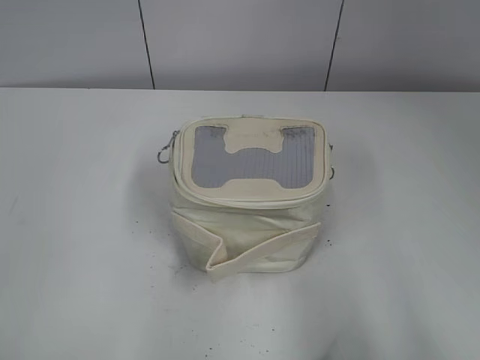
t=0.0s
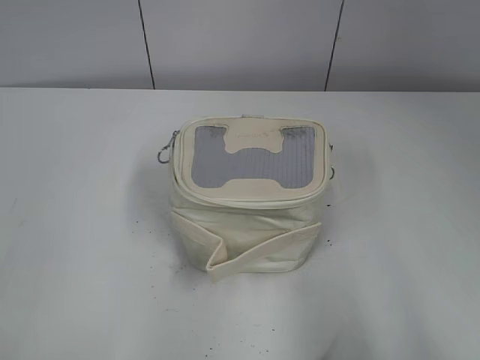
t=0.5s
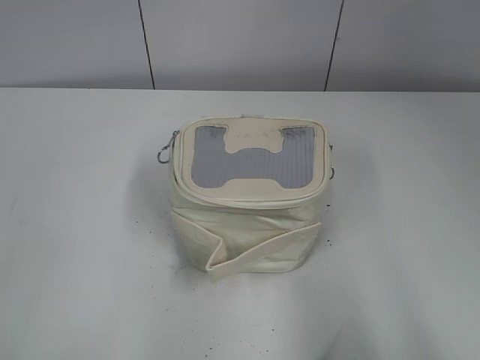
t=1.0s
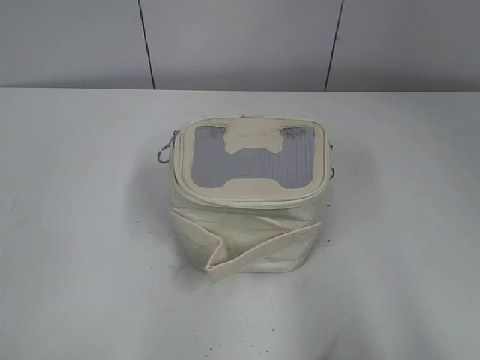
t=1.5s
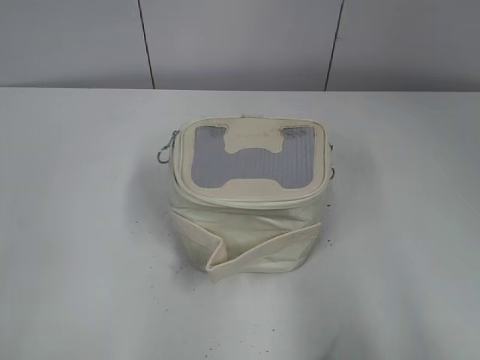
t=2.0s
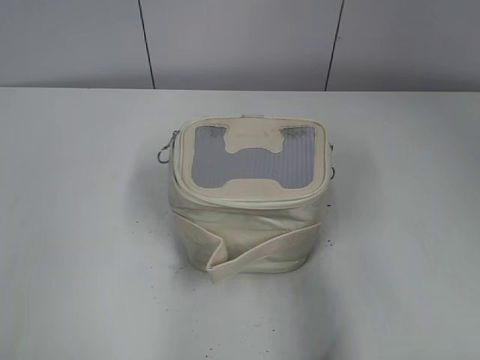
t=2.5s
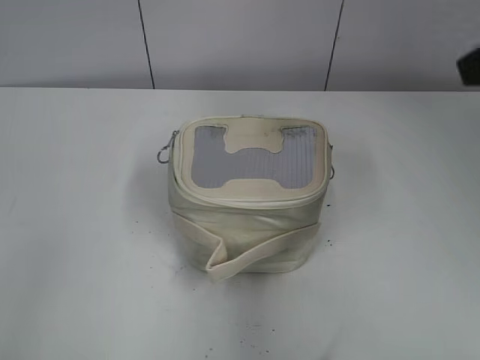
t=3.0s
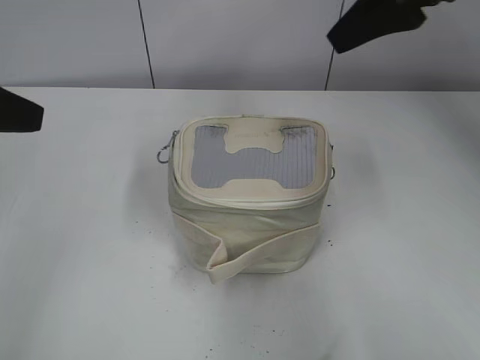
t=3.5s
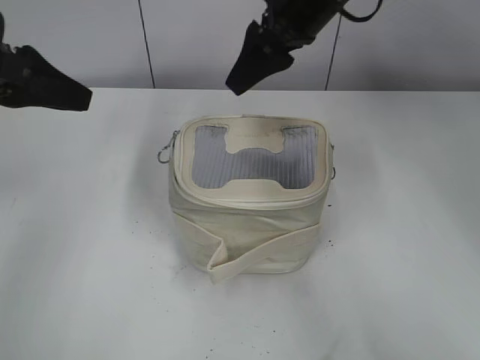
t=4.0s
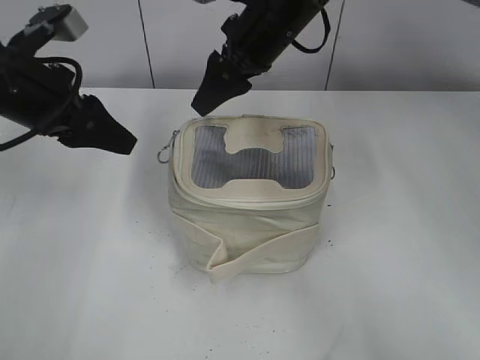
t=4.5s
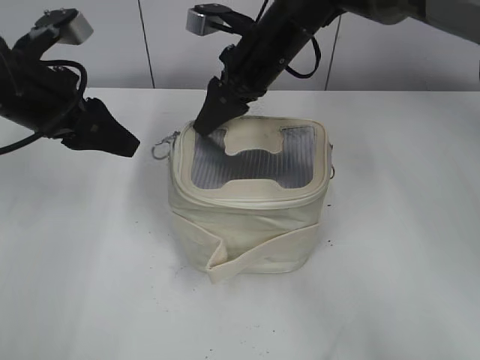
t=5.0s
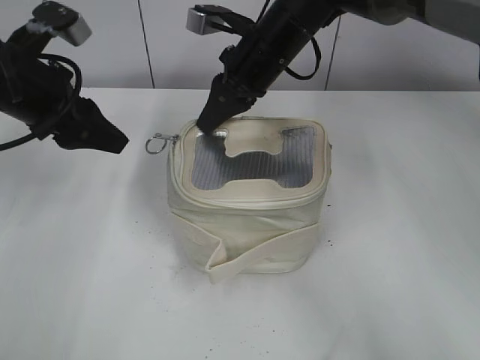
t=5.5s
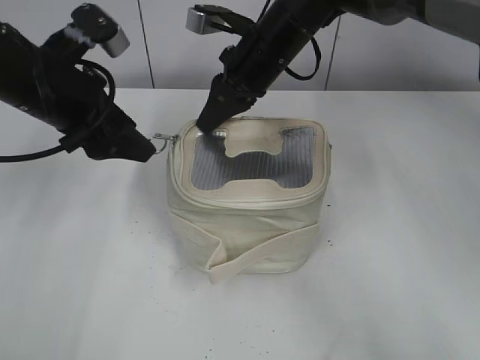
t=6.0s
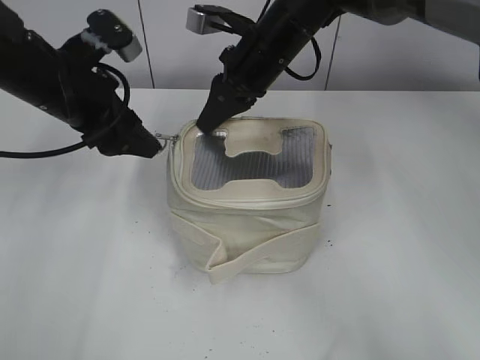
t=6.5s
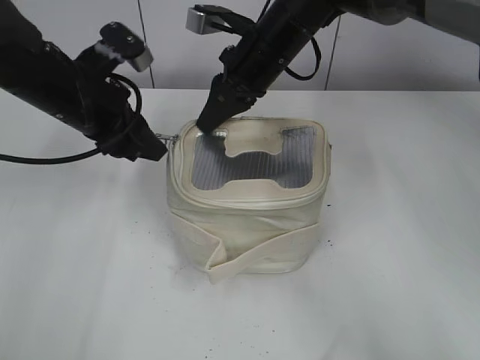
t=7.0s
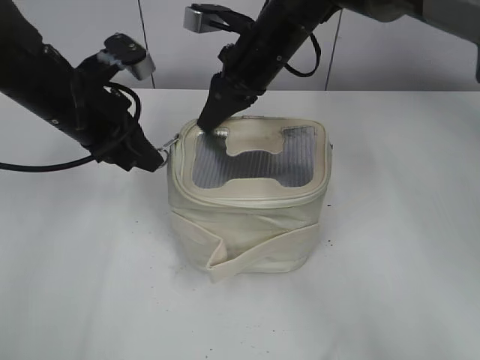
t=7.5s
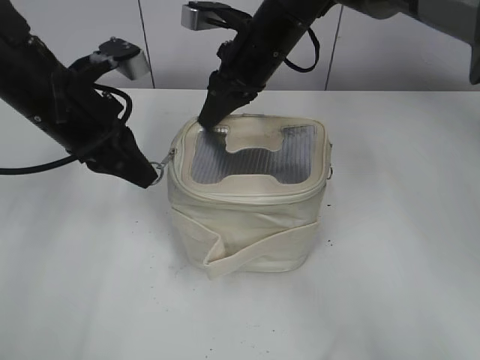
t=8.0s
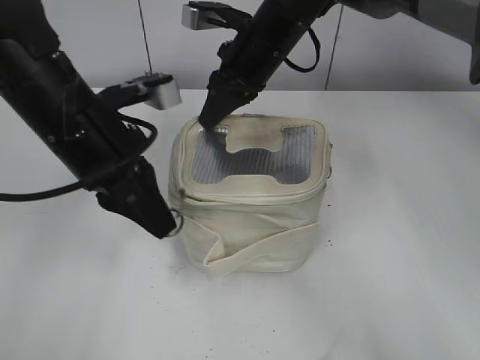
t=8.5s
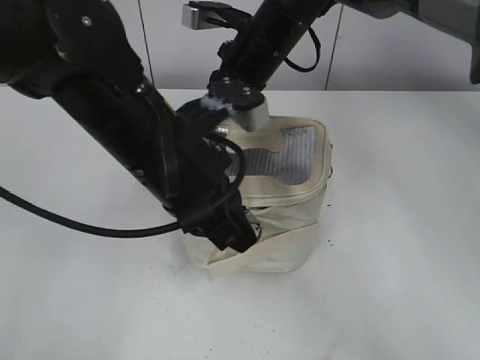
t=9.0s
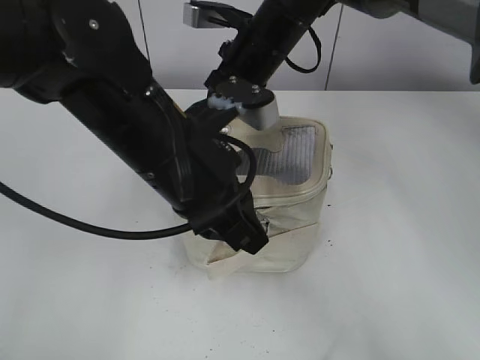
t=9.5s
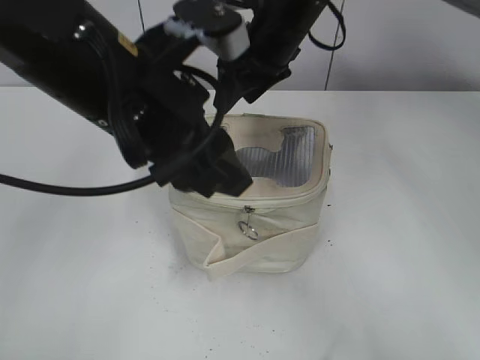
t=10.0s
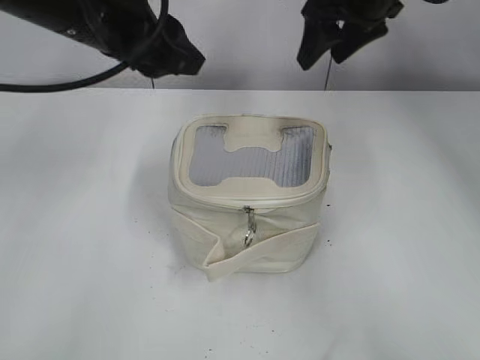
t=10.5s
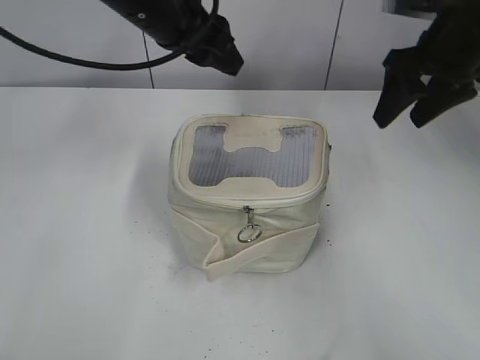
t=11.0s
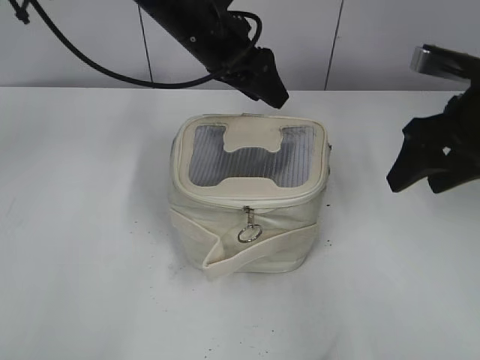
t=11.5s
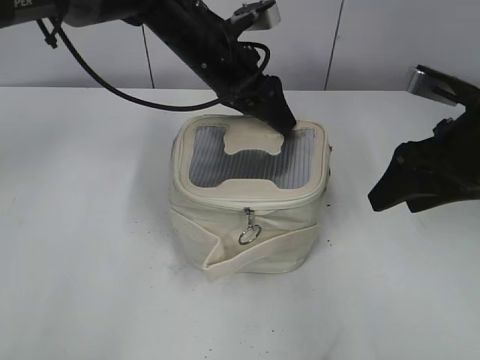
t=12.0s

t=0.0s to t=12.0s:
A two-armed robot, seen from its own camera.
Step, t=0.0s to t=9.5s: Zip up the bag with your left hand.
t=2.0s to t=4.0s: The right gripper heads forward and to the left, covering some 50 cm, while the left gripper heads forward, covering roughly 30 cm.
t=4.0s to t=6.0s: The left gripper heads to the right, covering approximately 5 cm; the right gripper goes some 10 cm downward and to the left, and closes up.
t=6.0s to t=8.0s: The left gripper closes its fingers.
t=8.0s to t=10.0s: The left gripper heads to the right and backward, covering approximately 15 cm, and opens up. Meanwhile the right gripper opens.
t=10.0s to t=12.0s: The left gripper shifts approximately 20 cm forward. Meanwhile the right gripper heads to the right and backward, covering about 25 cm.

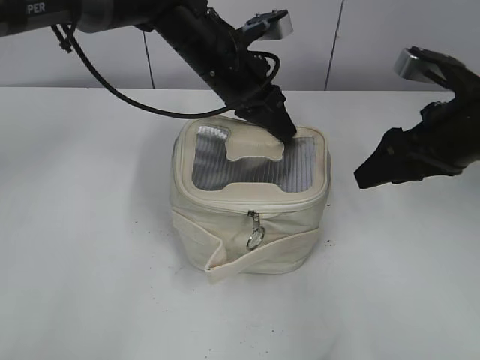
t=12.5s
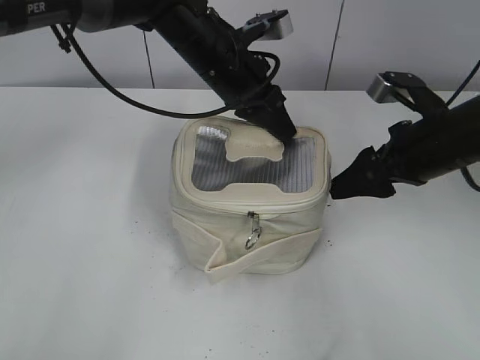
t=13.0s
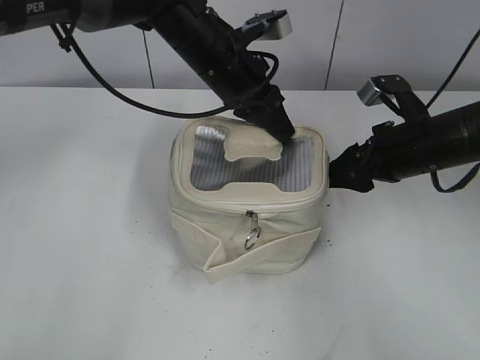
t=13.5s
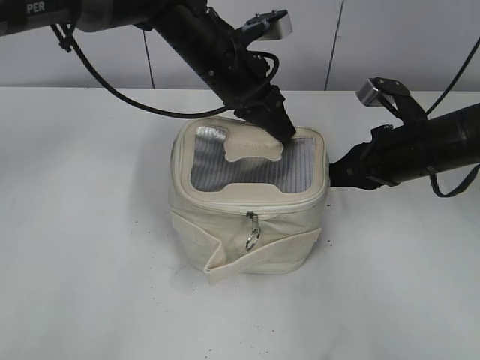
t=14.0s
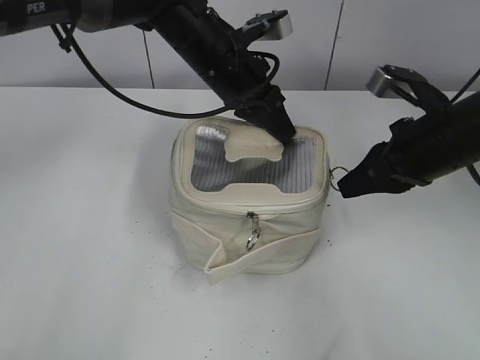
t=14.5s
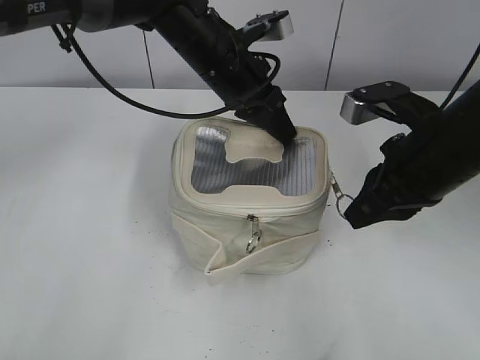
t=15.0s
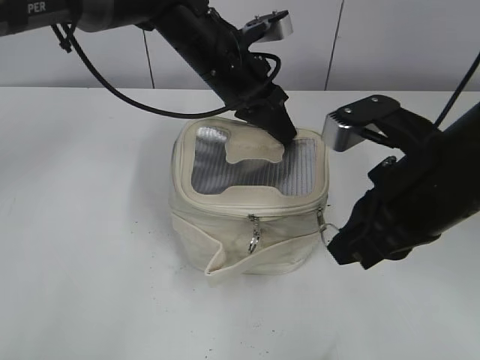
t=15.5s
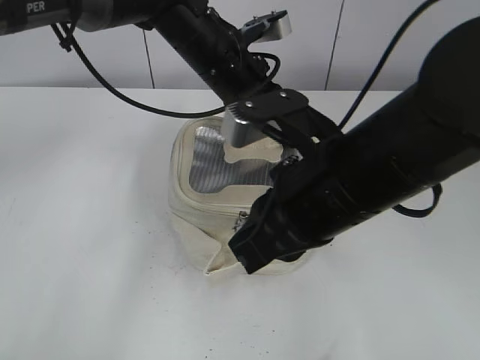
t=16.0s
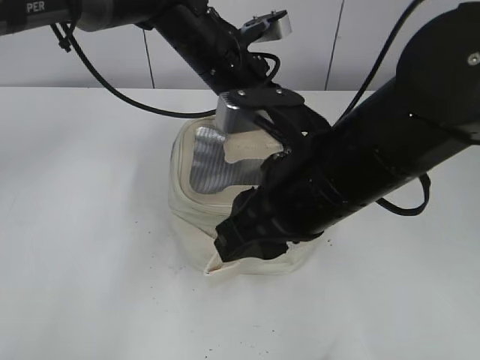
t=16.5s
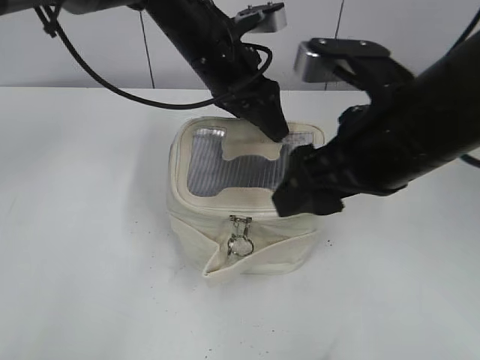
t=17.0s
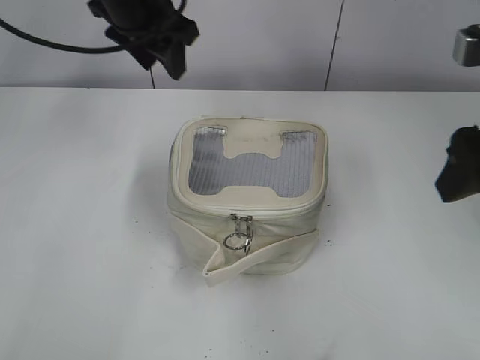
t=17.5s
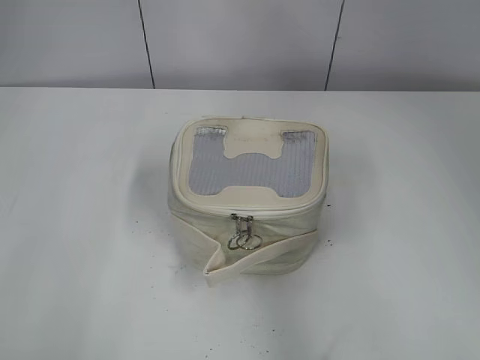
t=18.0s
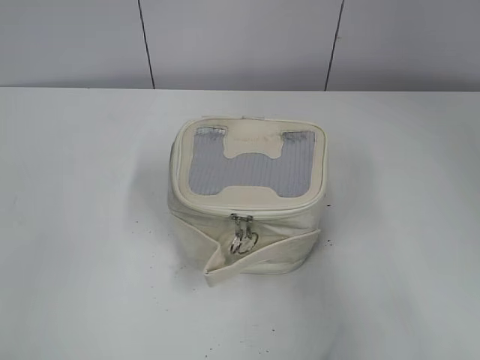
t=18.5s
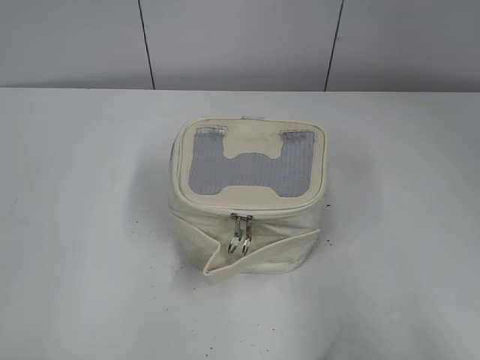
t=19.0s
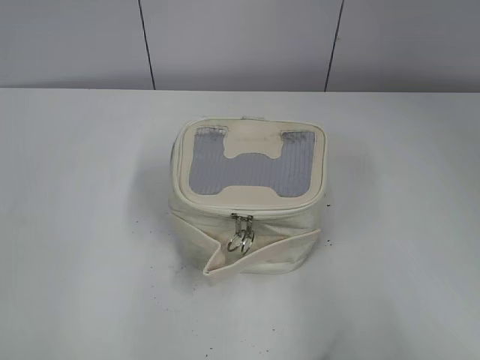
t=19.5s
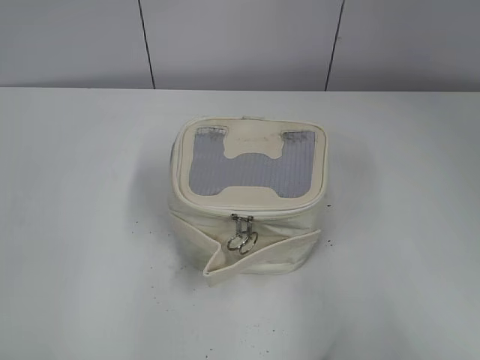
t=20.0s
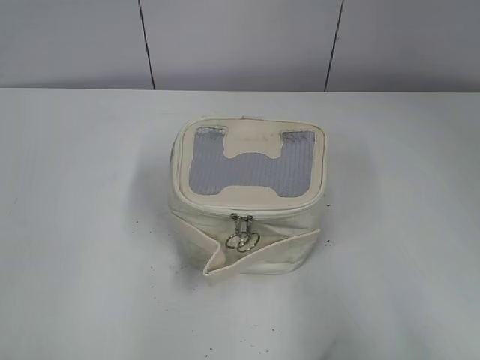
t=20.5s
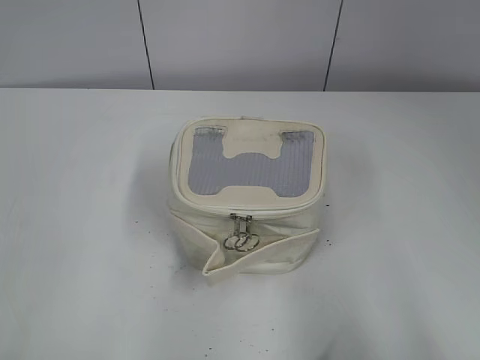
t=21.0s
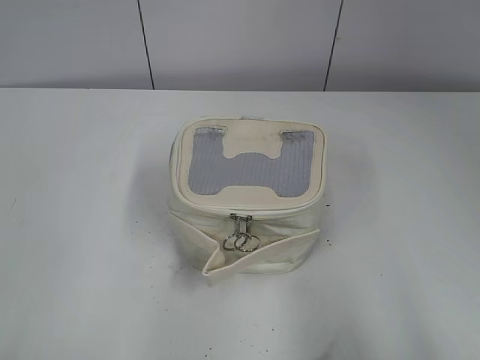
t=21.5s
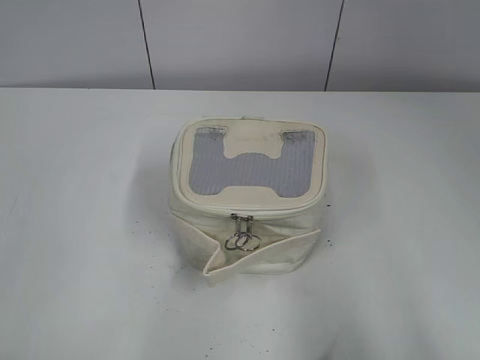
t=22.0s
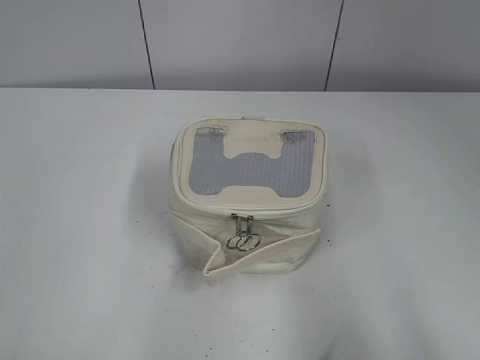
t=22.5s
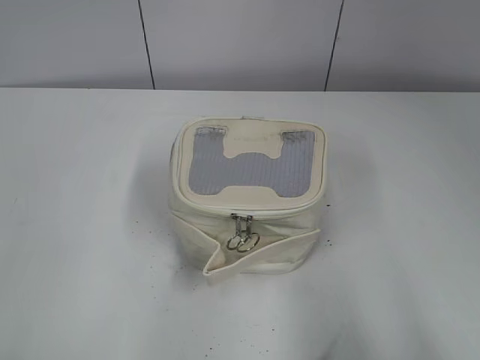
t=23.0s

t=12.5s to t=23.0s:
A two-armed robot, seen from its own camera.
Step, t=12.5s to t=16.5s: Zip up the bag with your right hand.
t=12.5s to t=14.5s: The right gripper closes its fingers.
t=14.5s to t=16.5s: The right gripper moves to the left and backward, about 20 cm.
t=16.5s to t=19.0s: The right gripper moves to the right and backward, some 30 cm, and opens up. Meanwhile the left gripper shifts roughly 50 cm backward and to the left, and opens its fingers.
t=21.0s to t=23.0s: Both grippers stay put.

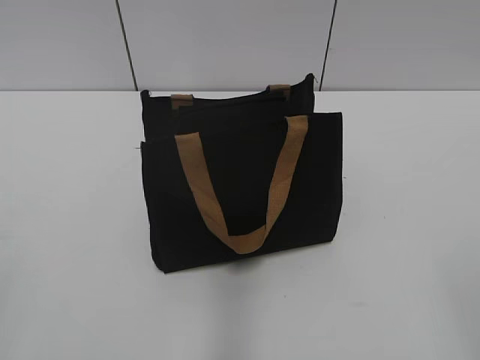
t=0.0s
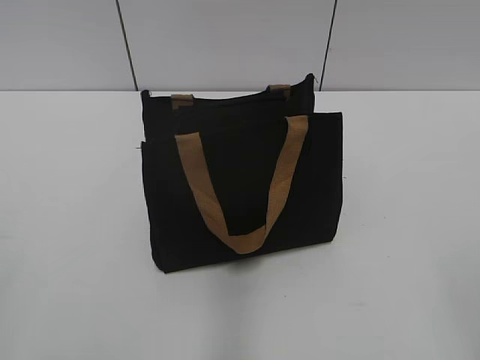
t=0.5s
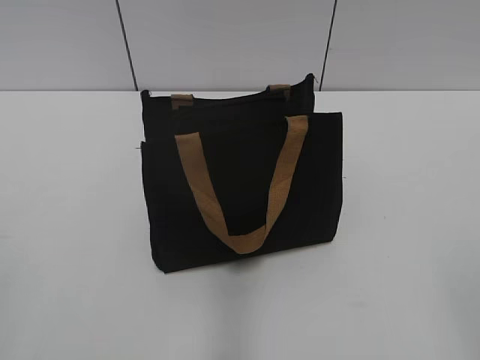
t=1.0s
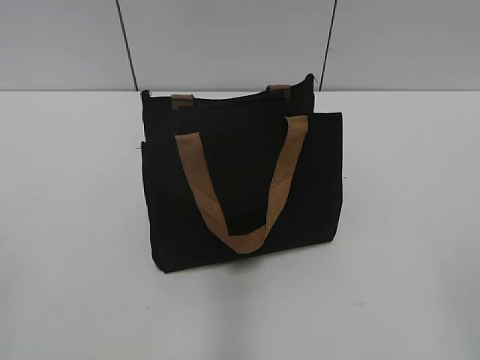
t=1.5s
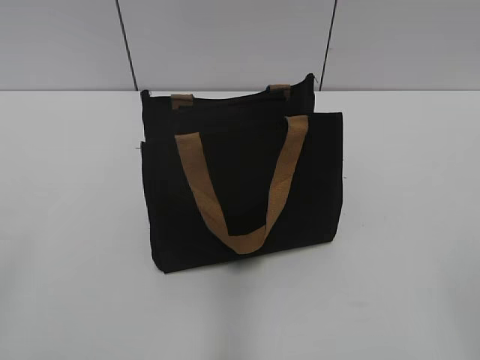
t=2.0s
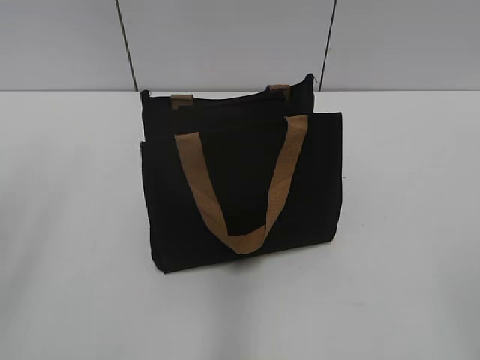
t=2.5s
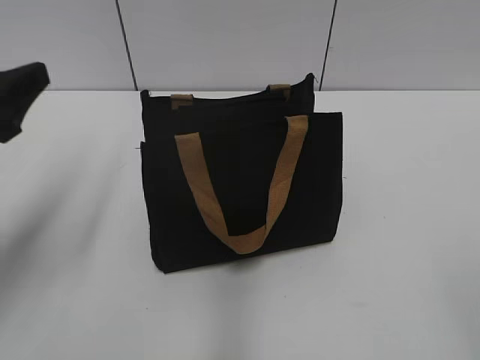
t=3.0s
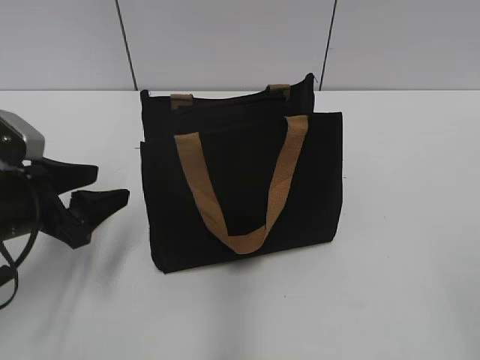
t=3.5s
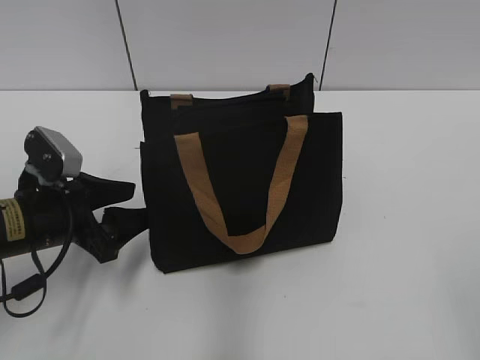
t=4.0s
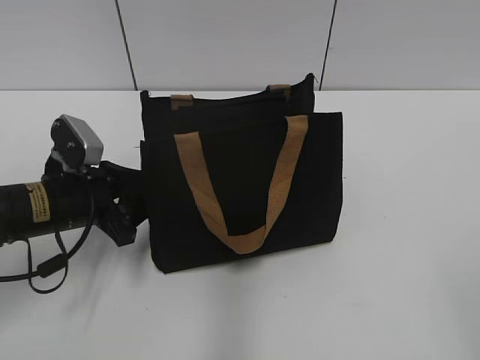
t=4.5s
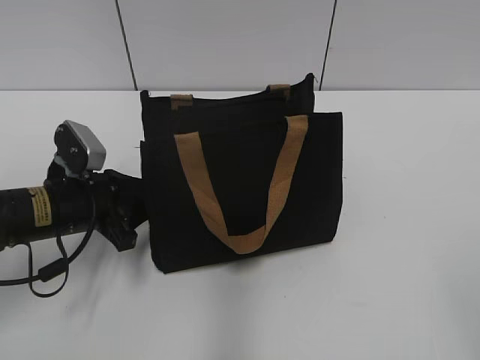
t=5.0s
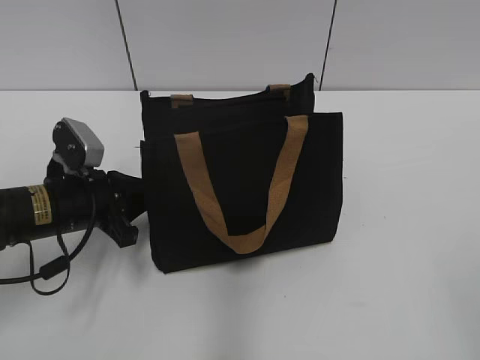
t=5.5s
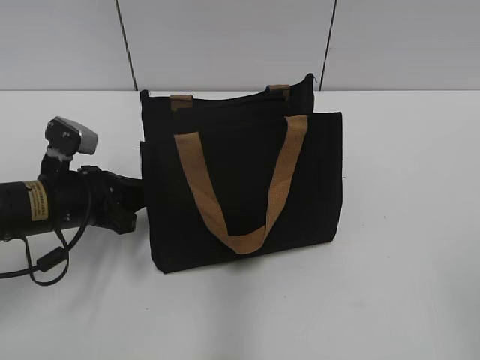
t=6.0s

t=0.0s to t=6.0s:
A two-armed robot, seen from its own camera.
t=2.0s to t=4.0s: The left gripper shifts roughly 30 cm forward and downward.
t=4.0s to t=6.0s: The left gripper closes.
